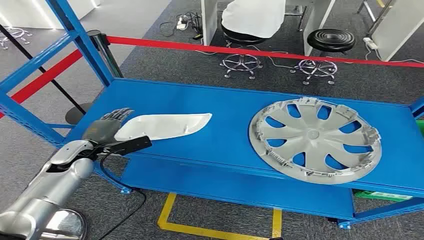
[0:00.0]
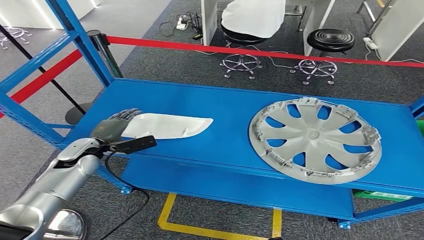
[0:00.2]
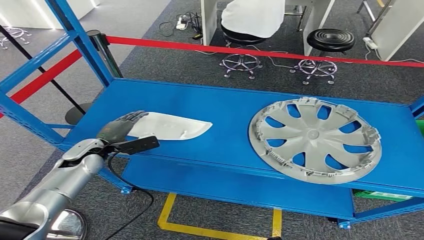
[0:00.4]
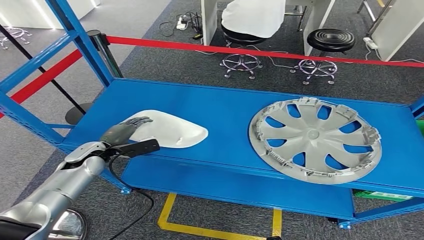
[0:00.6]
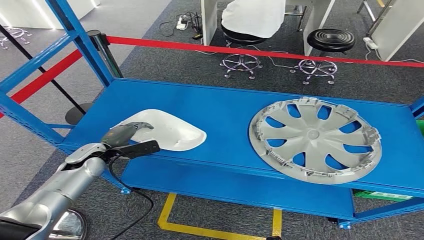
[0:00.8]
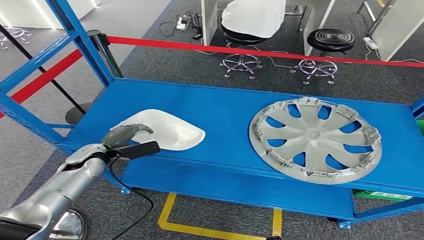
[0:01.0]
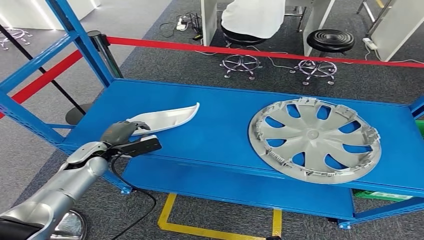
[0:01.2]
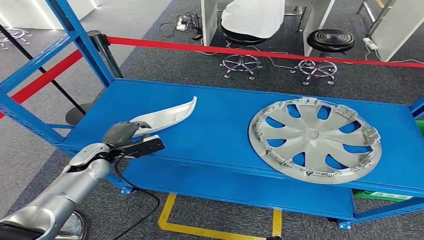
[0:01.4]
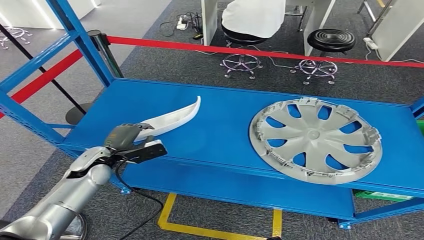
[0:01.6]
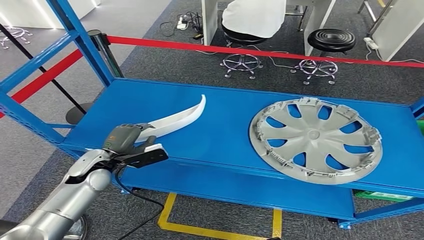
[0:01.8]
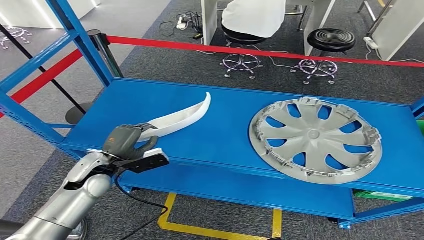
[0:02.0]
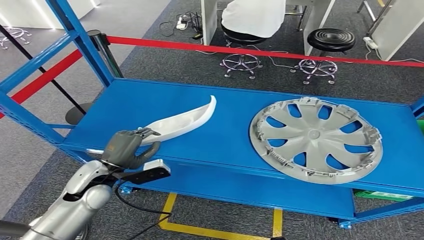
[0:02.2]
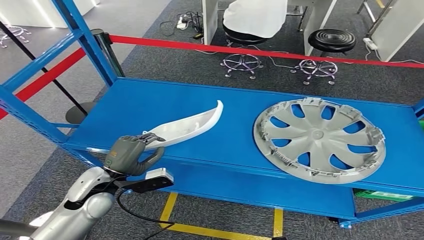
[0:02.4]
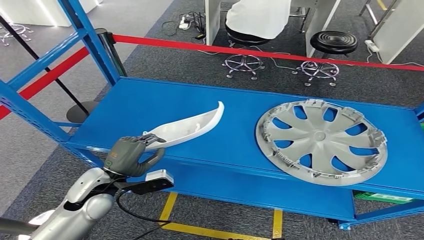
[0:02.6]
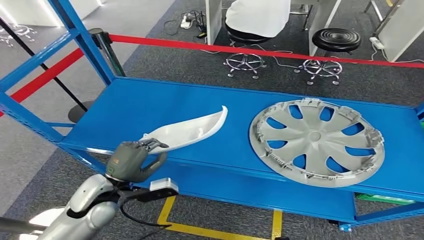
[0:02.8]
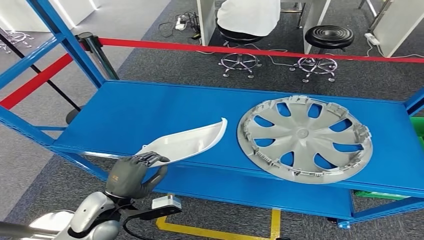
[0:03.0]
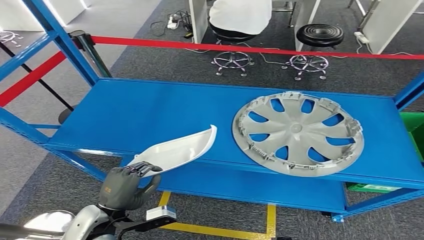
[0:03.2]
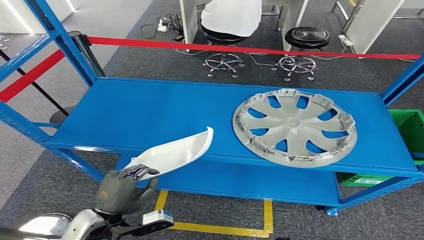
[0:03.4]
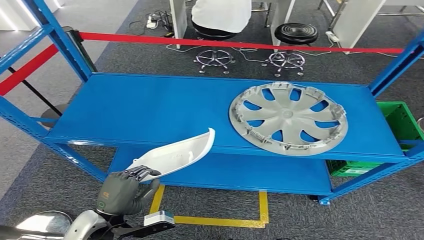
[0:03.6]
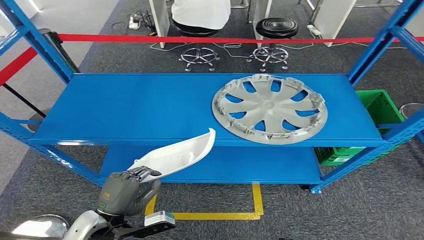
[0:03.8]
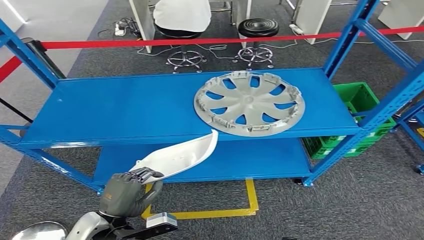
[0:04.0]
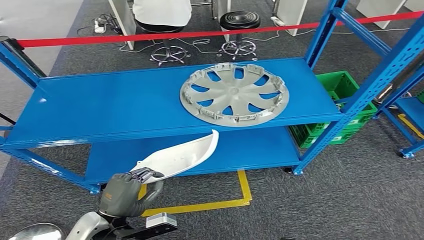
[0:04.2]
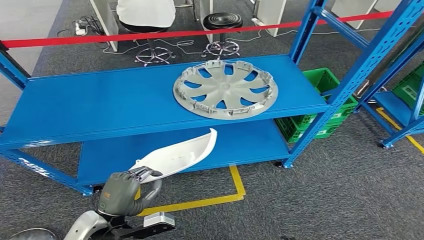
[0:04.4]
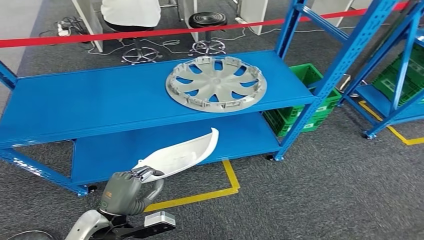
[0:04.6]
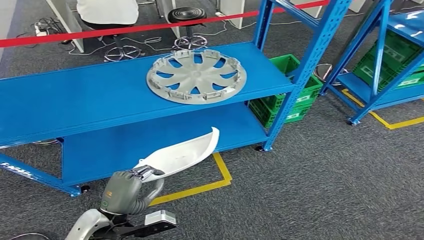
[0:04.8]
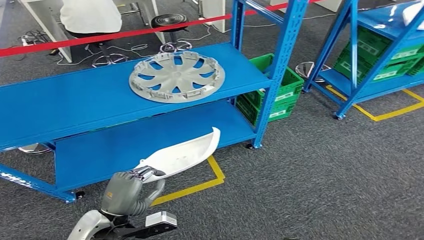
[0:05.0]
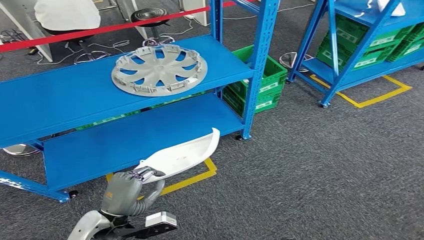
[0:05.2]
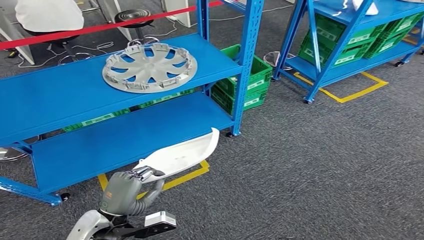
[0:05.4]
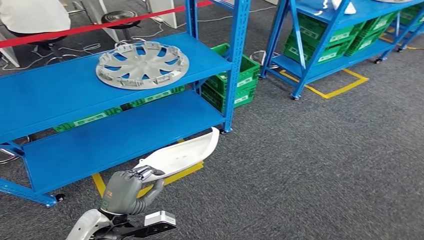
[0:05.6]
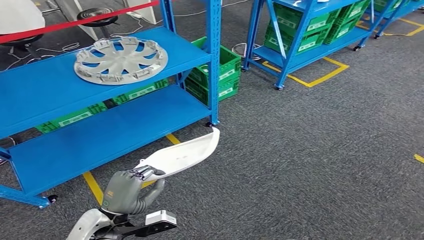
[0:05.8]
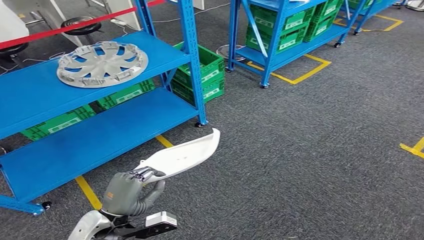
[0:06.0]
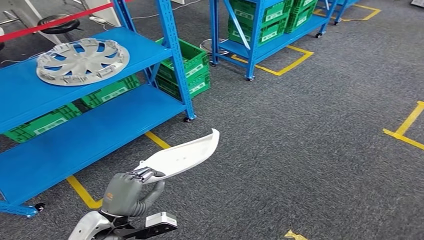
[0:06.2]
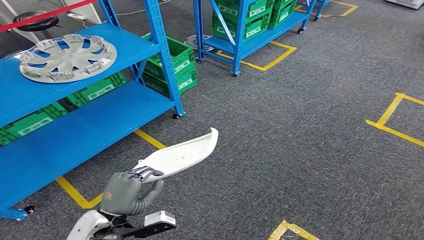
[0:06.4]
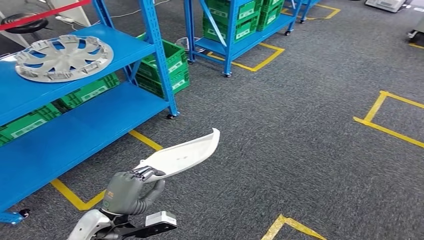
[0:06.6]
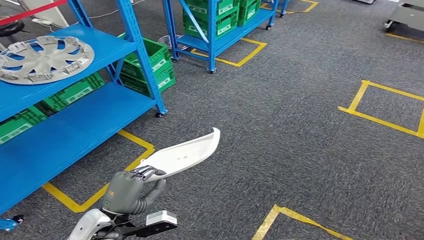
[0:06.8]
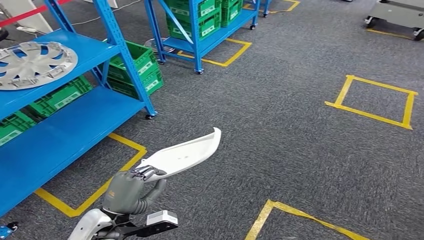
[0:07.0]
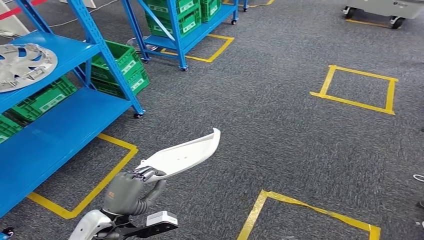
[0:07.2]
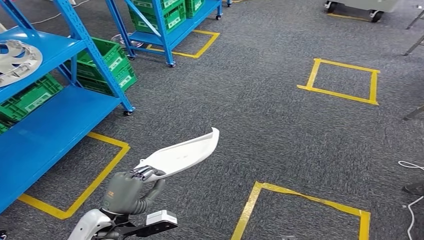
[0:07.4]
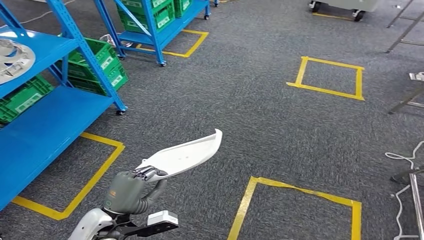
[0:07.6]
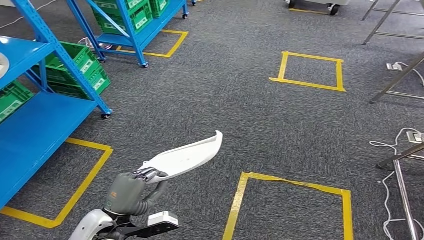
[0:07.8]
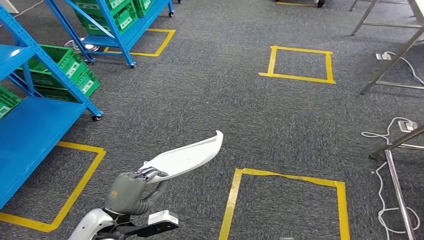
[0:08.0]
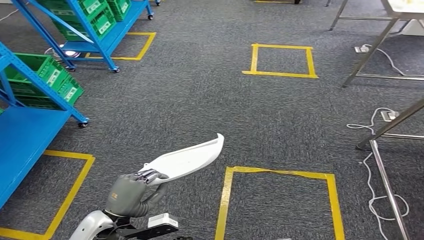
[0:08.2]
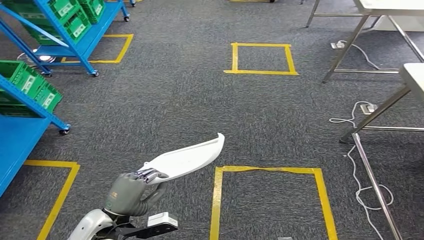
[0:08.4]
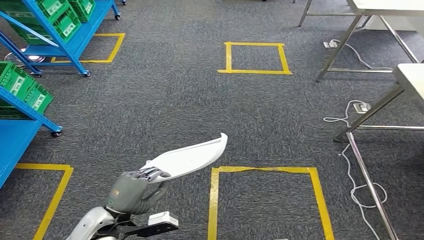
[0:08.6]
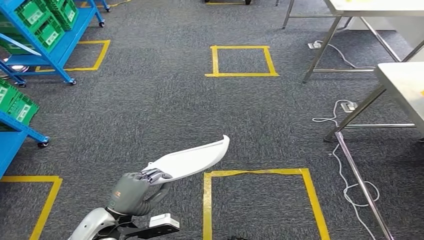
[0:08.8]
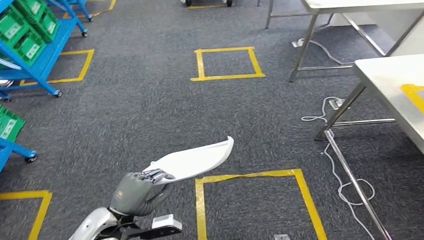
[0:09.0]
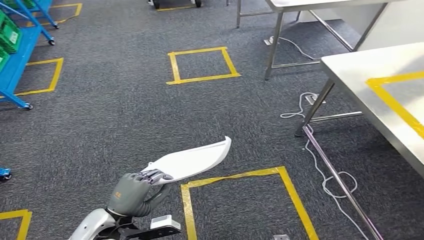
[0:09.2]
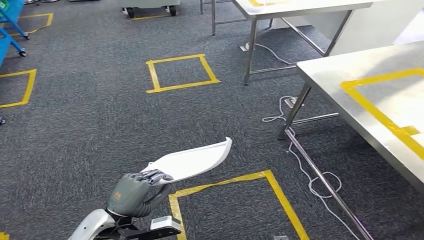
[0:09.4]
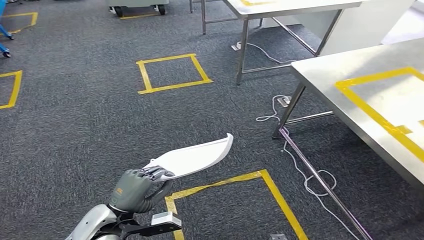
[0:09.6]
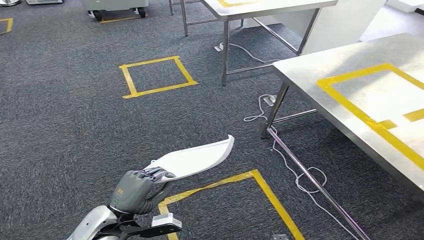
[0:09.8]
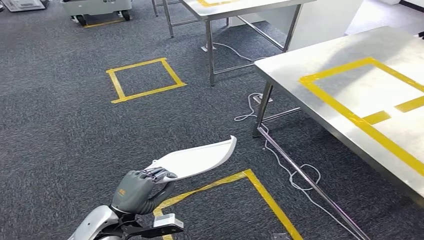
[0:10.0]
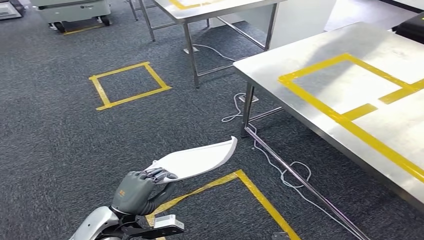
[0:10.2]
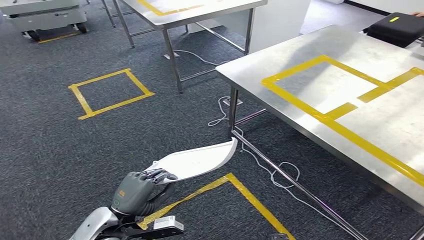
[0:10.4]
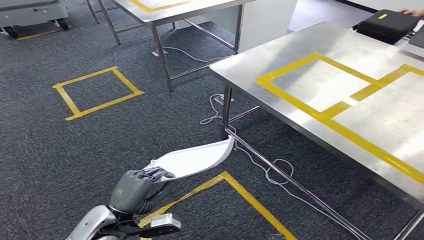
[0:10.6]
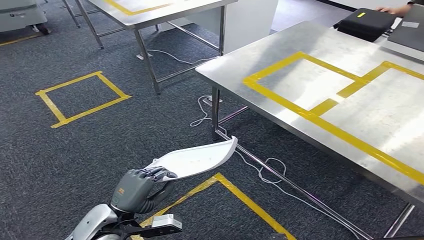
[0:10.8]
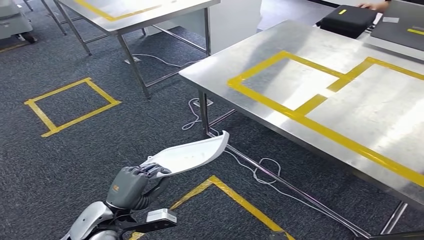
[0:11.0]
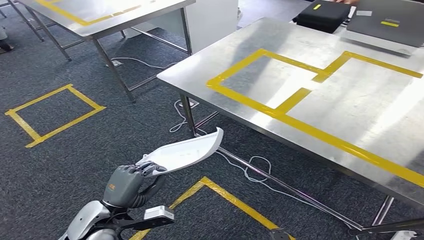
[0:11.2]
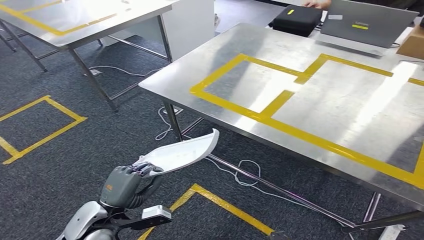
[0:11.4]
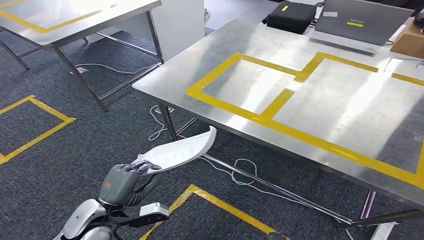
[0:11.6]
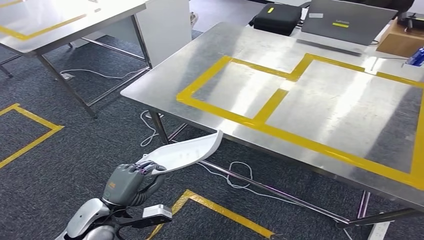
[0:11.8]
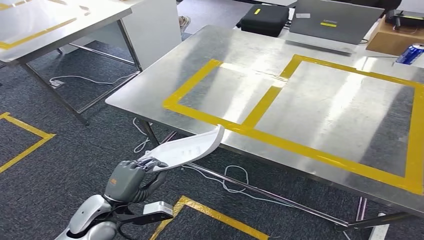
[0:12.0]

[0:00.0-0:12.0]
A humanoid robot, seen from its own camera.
Step, 0:00.0 to 0:03.0: Pick up the small parts from the shelf.

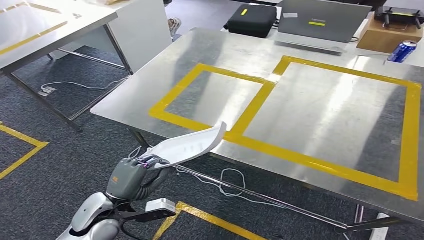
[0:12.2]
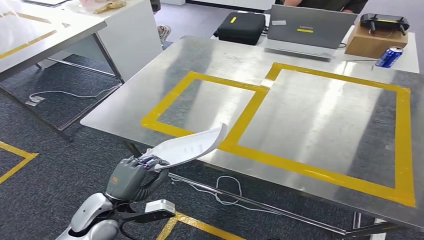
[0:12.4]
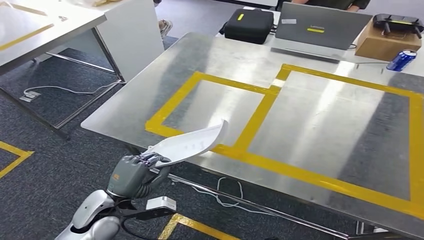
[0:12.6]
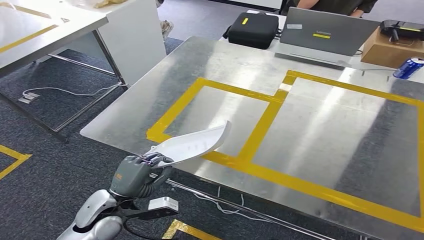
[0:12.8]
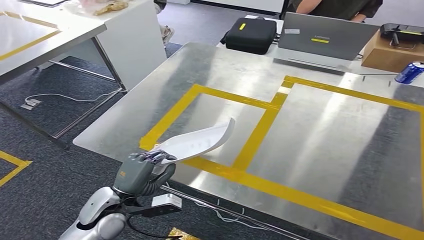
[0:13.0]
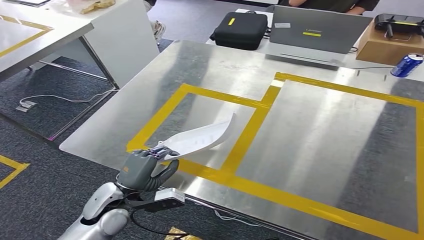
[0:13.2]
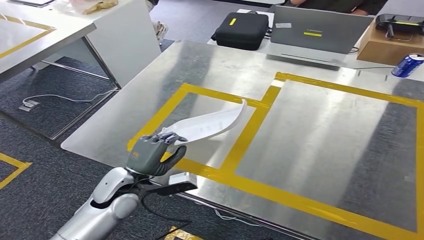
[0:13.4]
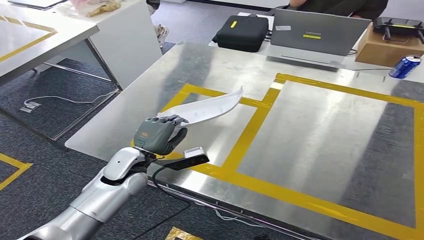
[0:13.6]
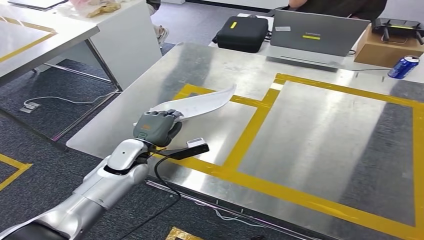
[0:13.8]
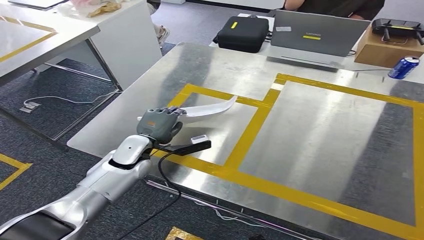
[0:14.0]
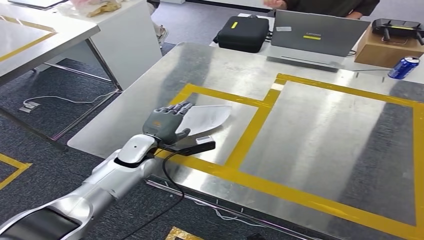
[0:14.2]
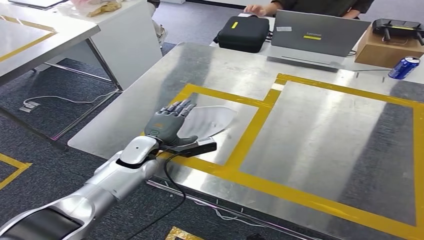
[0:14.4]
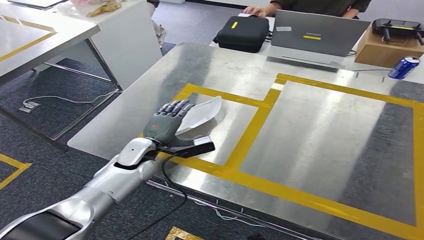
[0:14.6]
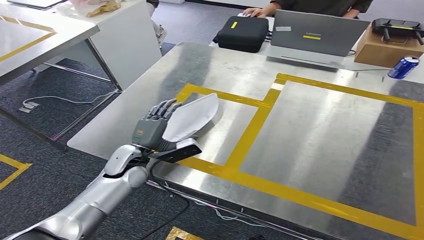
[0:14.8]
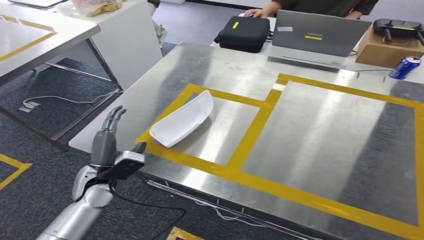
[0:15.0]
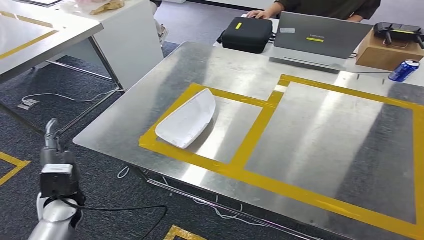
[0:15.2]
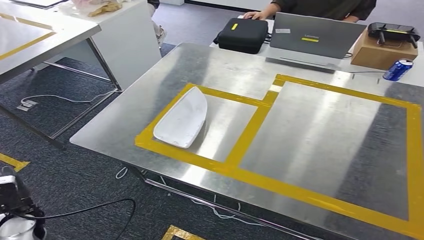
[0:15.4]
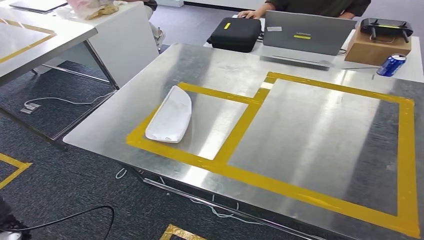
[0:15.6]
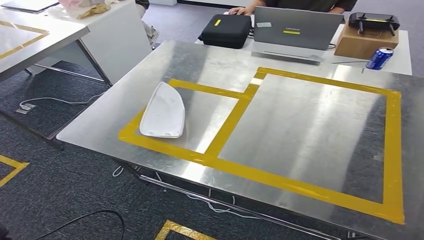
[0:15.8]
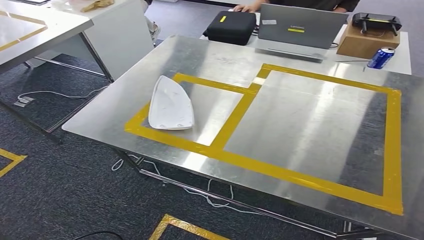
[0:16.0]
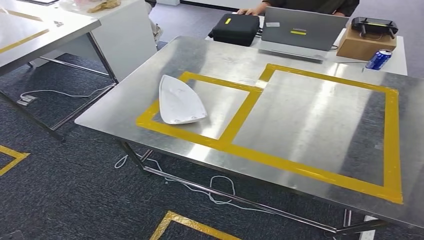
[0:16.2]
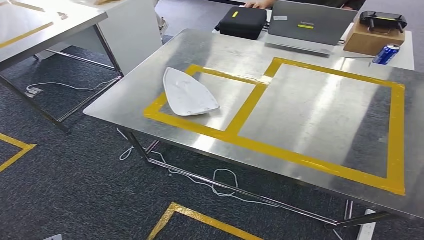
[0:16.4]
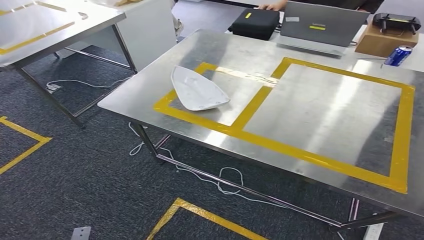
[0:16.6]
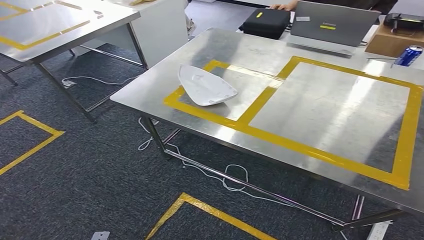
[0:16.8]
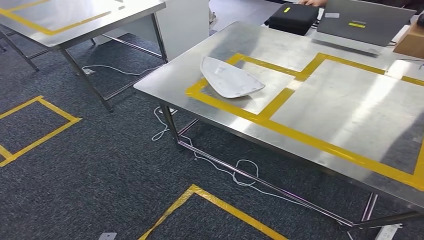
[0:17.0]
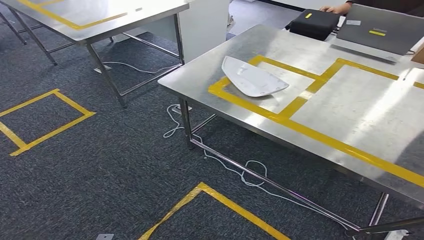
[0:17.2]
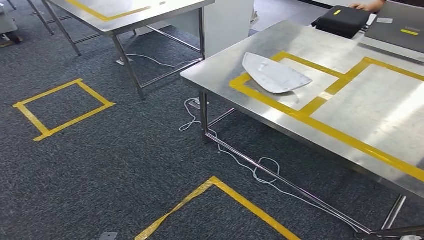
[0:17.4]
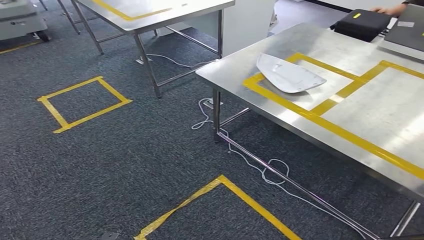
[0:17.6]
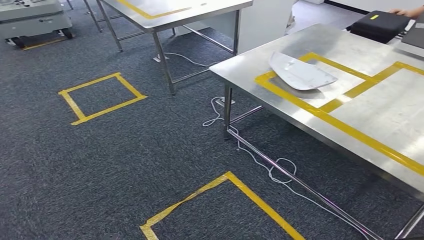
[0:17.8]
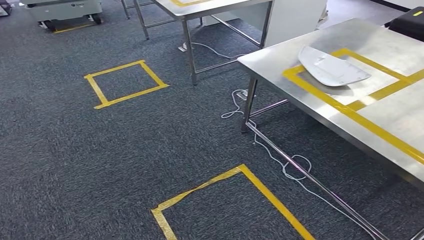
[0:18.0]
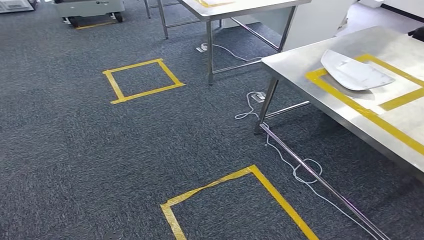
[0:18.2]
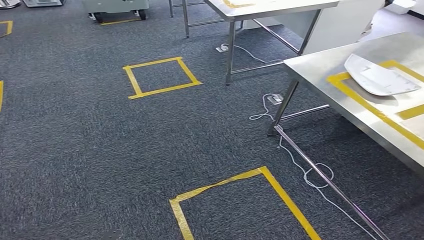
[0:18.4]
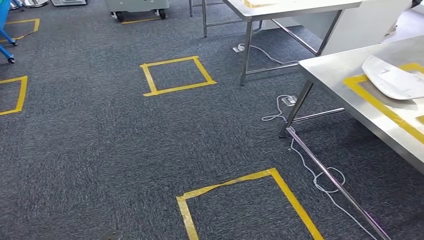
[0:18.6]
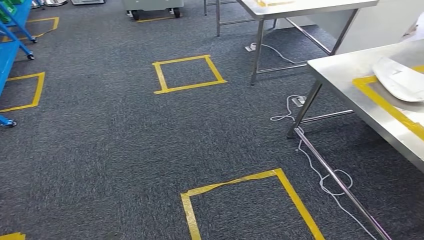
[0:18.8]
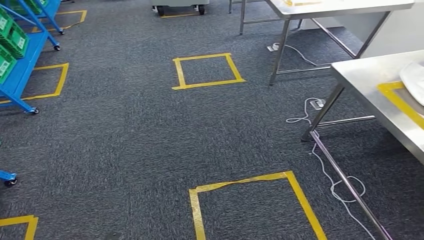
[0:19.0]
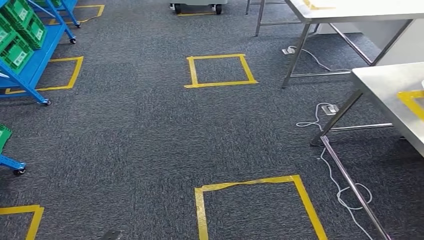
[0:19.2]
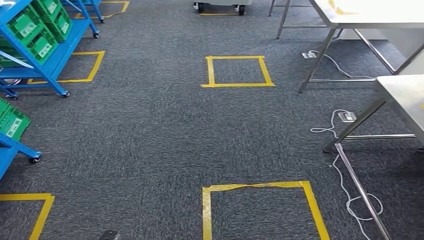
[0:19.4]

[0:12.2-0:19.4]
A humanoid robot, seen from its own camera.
Step, 0:12.6 to 0:15.6: Insert the small parts into the corresponding holes on the workbench.
0:13.6 to 0:15.0: The left hand heads to the left, covering some 5 cm.